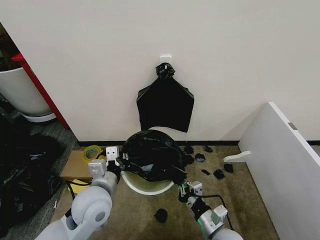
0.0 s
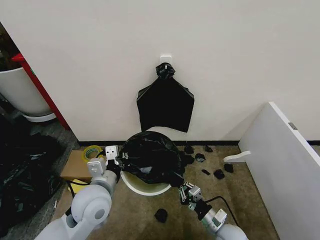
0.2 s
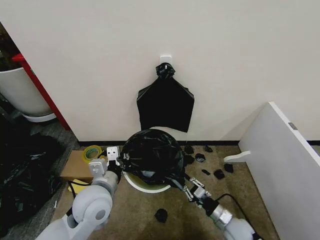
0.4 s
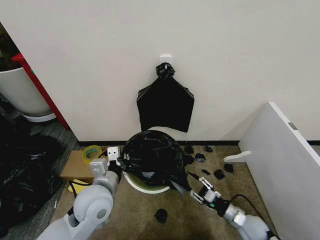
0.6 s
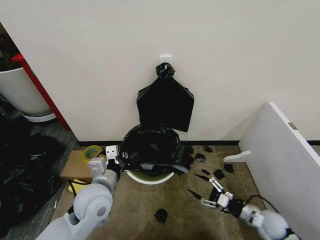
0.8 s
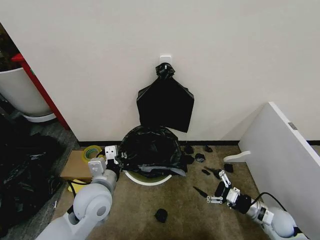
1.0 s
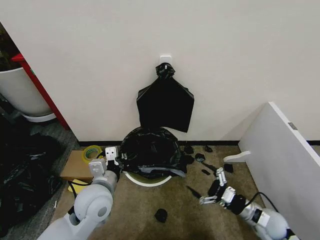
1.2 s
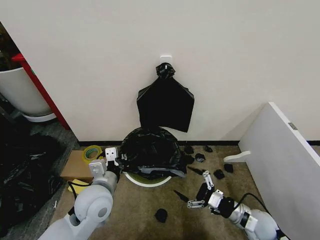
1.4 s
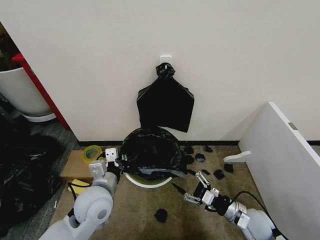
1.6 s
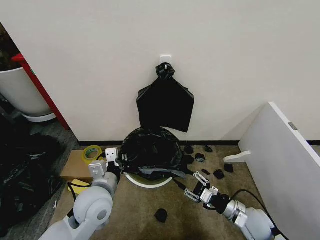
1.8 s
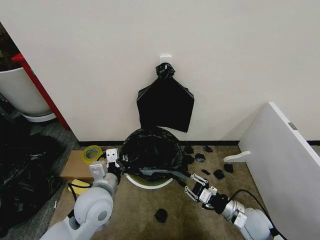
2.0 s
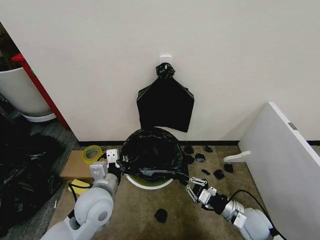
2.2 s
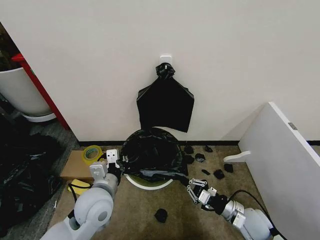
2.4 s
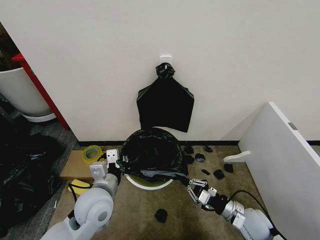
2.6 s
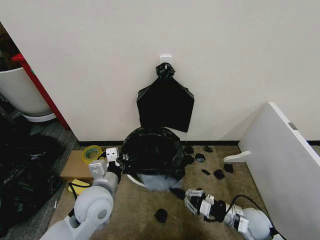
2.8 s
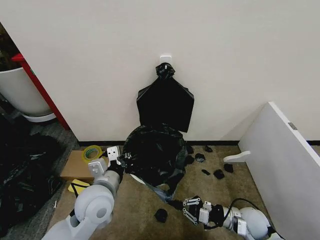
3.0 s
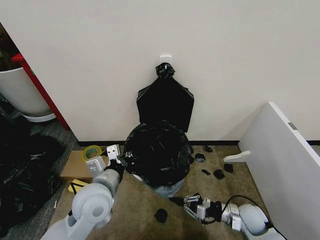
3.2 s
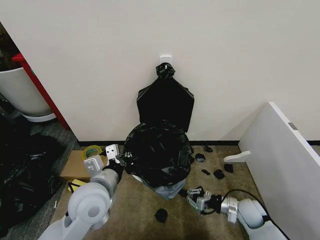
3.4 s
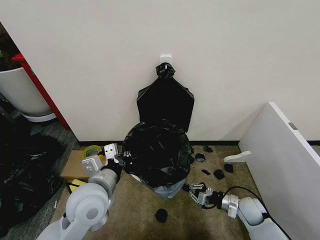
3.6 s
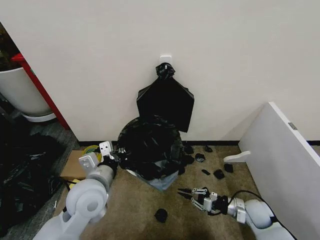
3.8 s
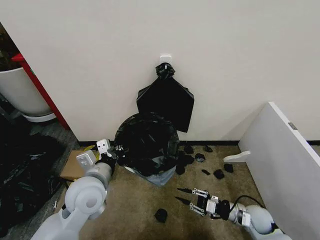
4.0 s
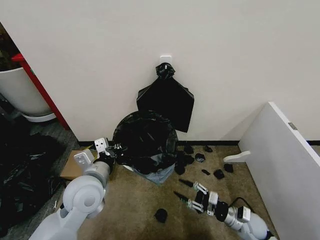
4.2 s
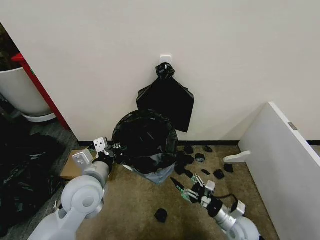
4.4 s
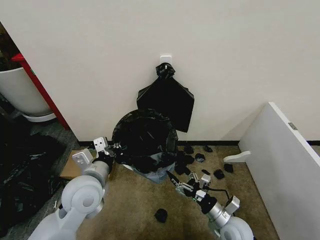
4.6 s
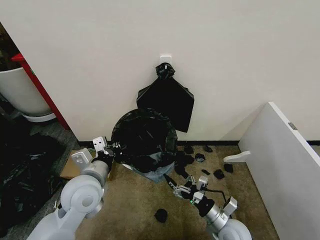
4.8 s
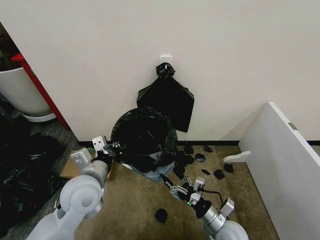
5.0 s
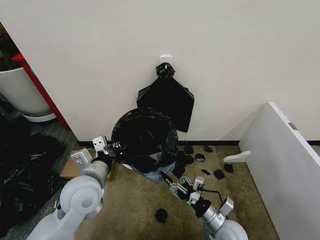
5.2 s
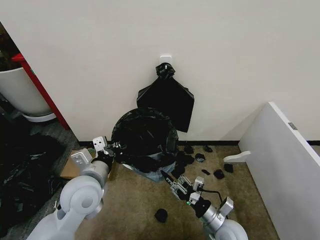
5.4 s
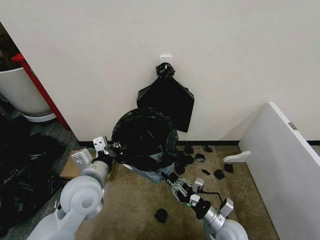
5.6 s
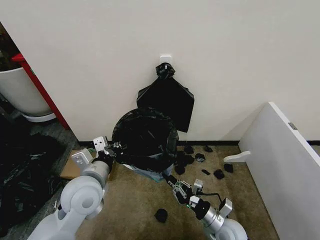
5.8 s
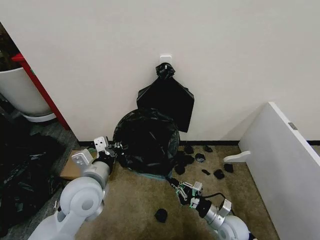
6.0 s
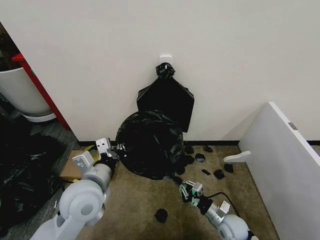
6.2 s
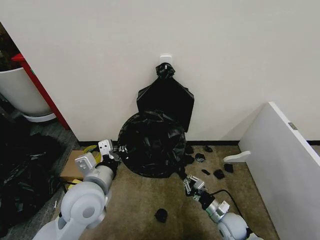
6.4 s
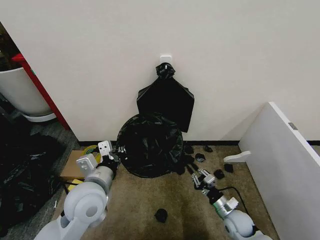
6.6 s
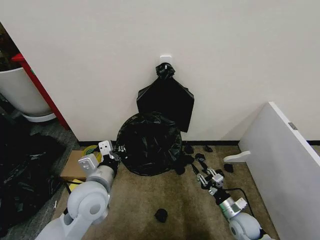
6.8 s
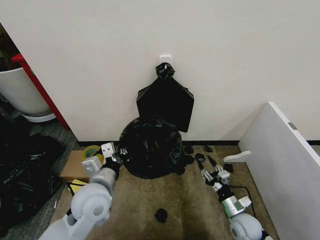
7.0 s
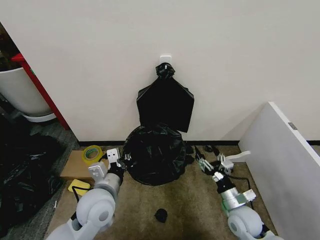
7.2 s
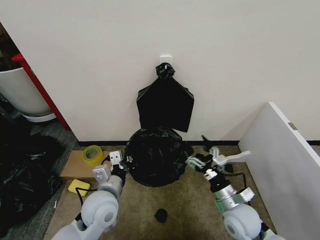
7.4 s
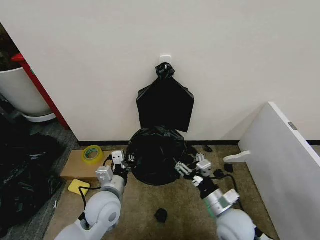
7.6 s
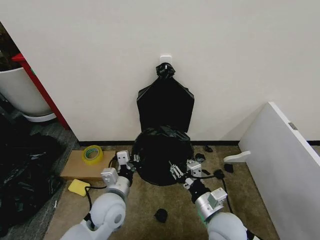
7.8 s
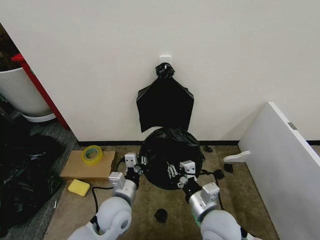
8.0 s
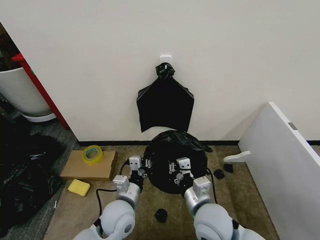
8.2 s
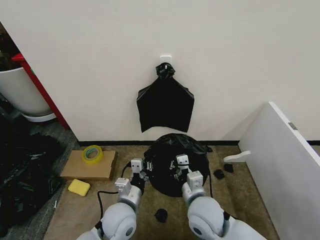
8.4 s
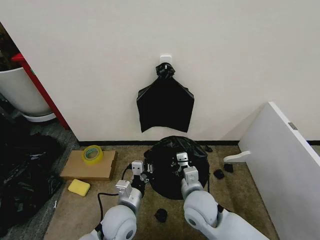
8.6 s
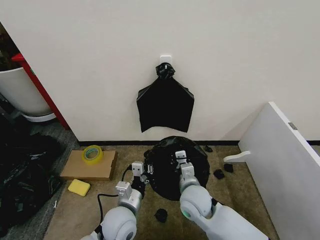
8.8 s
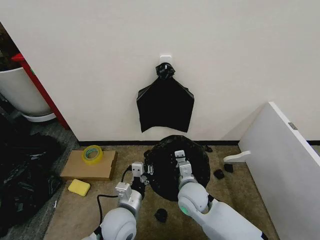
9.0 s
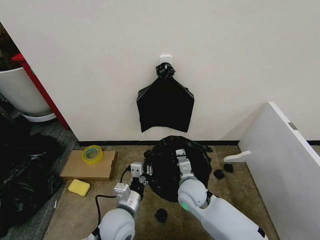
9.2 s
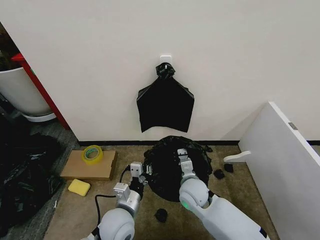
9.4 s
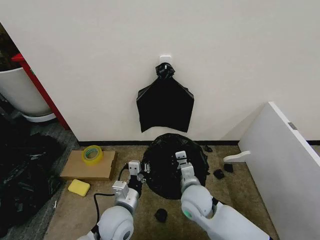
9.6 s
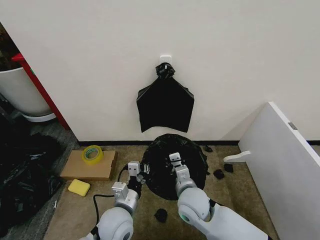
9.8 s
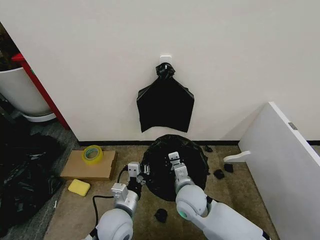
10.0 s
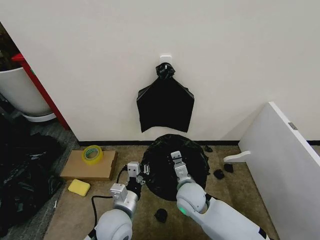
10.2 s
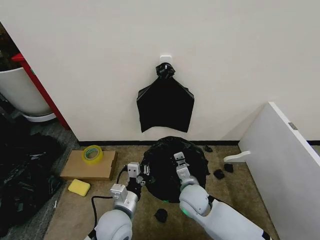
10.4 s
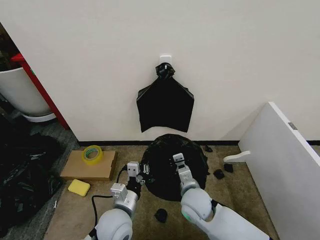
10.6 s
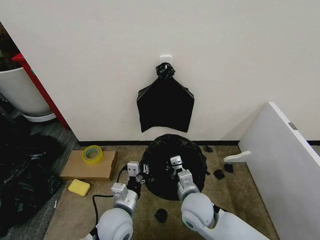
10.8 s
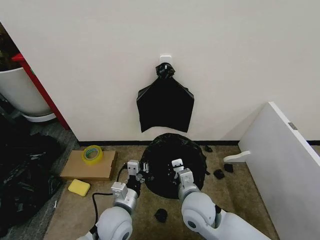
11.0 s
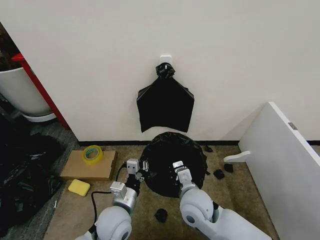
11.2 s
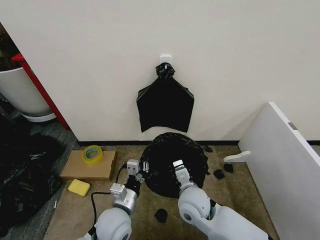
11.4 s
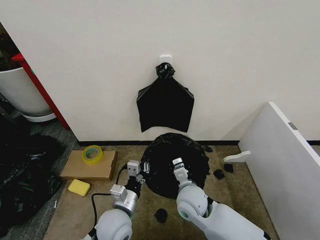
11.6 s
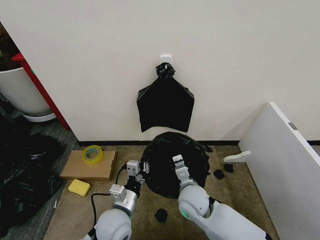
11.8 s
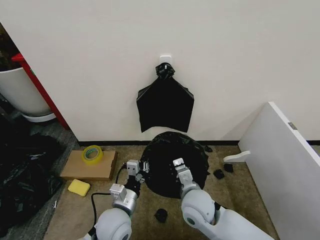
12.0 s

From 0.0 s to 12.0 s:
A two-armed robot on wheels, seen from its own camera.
Task of the whole recording: Place the garbage bag over the trash bin.
From 0.0 s to 1.6 s: The right gripper travels to the right and forward by about 15 cm, and opens up.
From 1.6 s to 3.0 s: The right gripper closes.
From 3.0 s to 4.4 s: The right gripper opens.
From 4.4 s to 6.0 s: The right gripper closes up.
From 6.0 s to 7.6 s: The right gripper heads upward, covering approximately 10 cm, and opens. Meanwhile the left gripper travels downward by some 10 cm.
From 7.6 s to 9.0 s: The right gripper heads to the left and forward, covering approximately 15 cm, and closes up. The left gripper shifts by roughly 5 cm.
From 9.0 s to 10.4 s: The grippers stay close to where they were, moving slightly.
From 10.4 s to 12.0 s: The right gripper ends up about 5 cm from where it was.

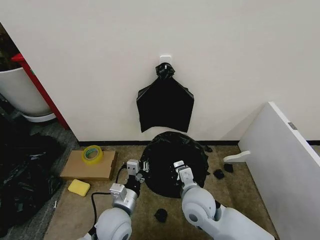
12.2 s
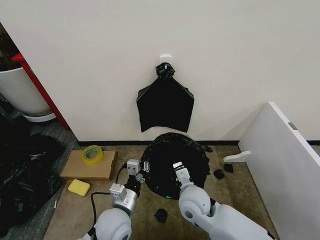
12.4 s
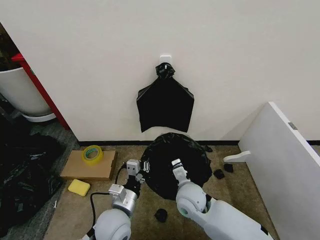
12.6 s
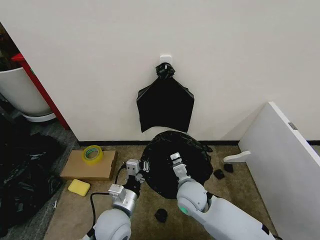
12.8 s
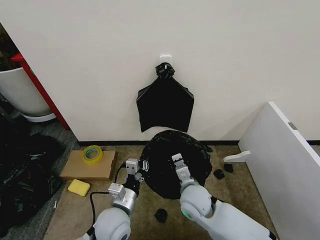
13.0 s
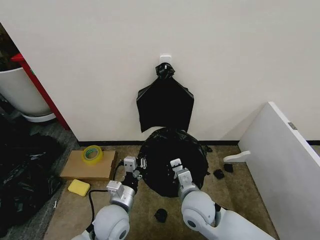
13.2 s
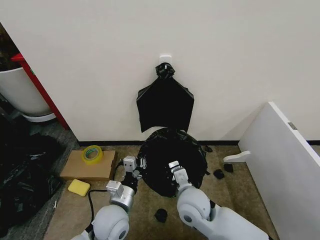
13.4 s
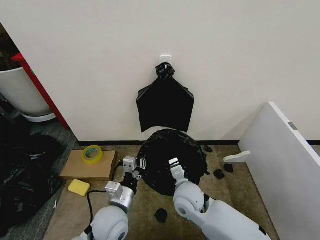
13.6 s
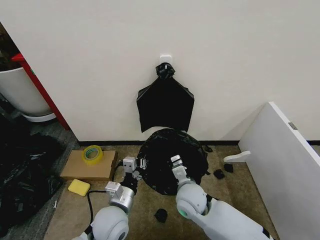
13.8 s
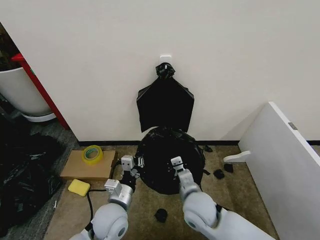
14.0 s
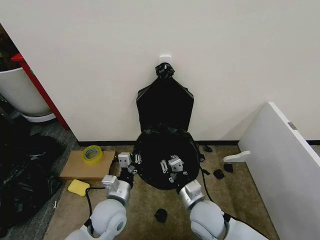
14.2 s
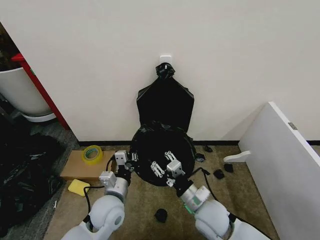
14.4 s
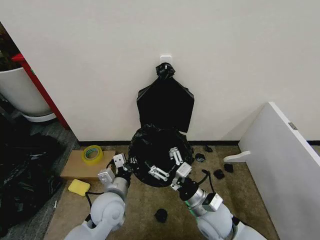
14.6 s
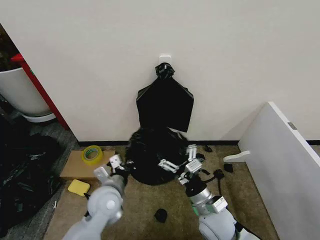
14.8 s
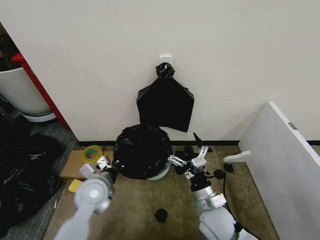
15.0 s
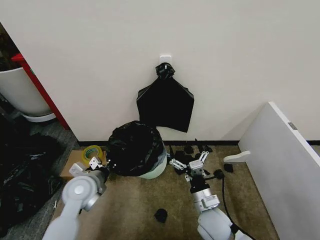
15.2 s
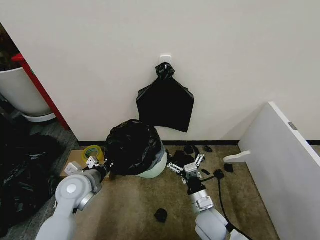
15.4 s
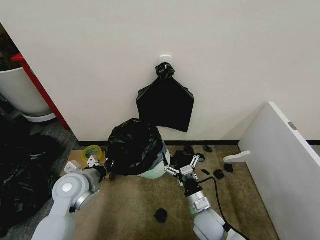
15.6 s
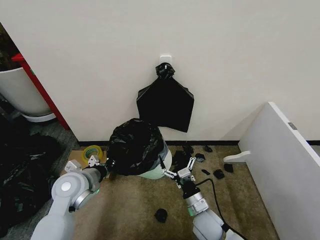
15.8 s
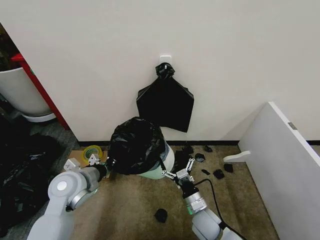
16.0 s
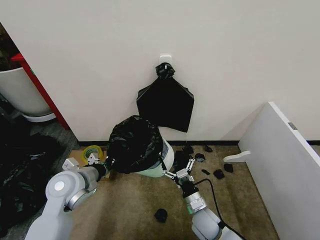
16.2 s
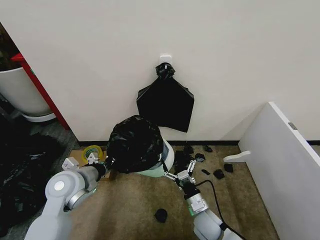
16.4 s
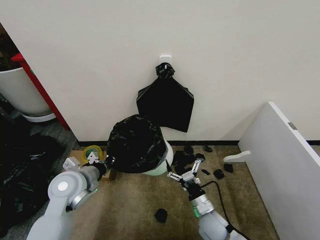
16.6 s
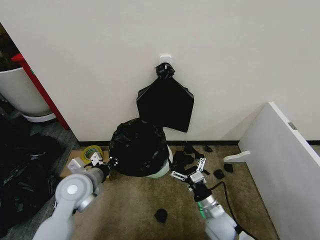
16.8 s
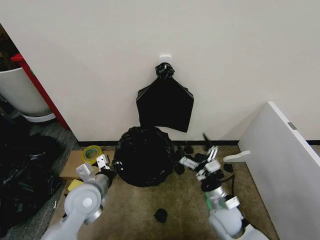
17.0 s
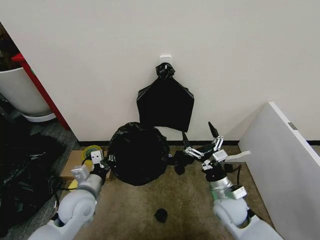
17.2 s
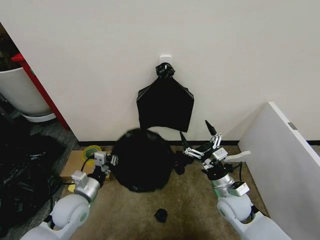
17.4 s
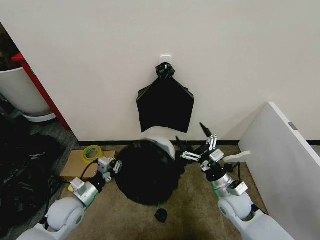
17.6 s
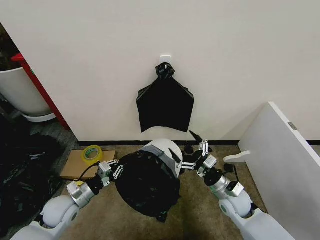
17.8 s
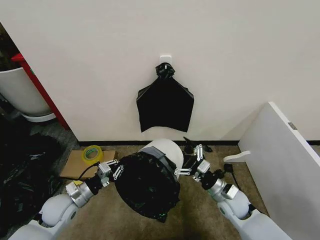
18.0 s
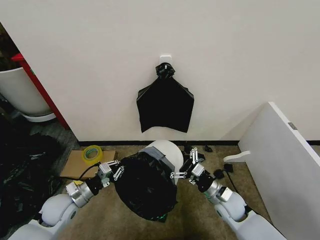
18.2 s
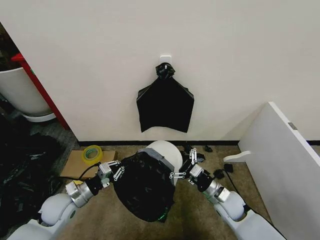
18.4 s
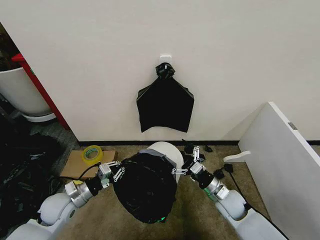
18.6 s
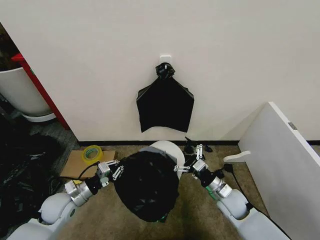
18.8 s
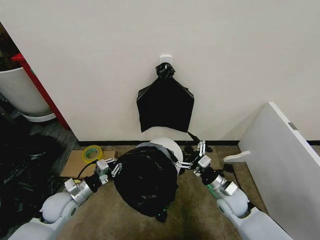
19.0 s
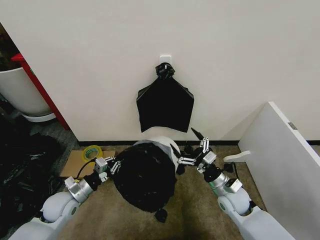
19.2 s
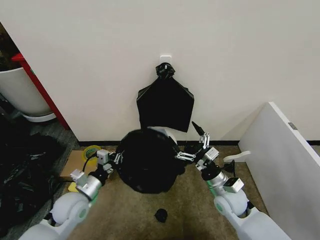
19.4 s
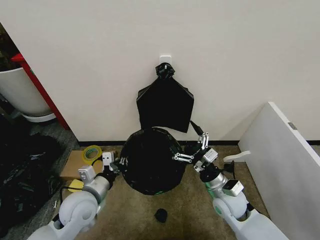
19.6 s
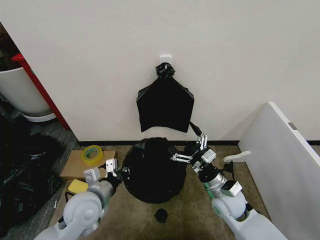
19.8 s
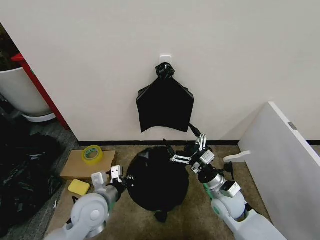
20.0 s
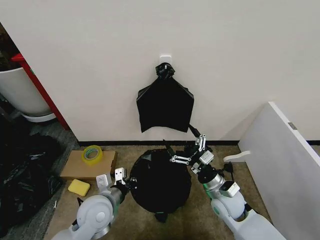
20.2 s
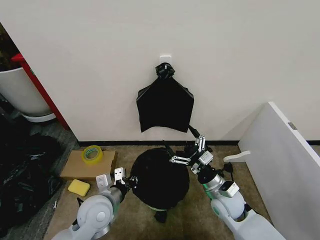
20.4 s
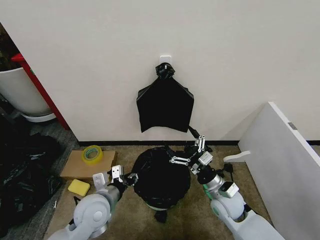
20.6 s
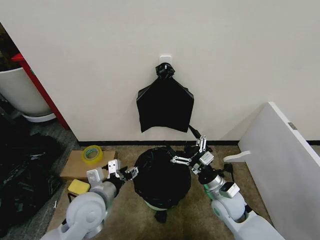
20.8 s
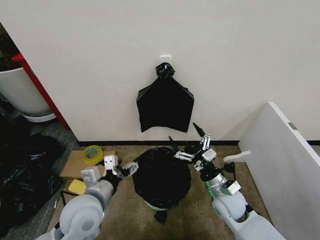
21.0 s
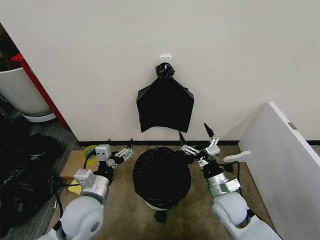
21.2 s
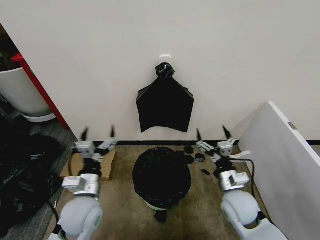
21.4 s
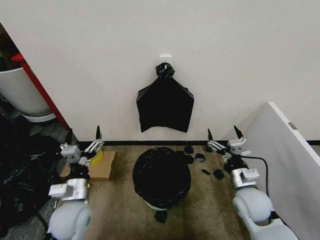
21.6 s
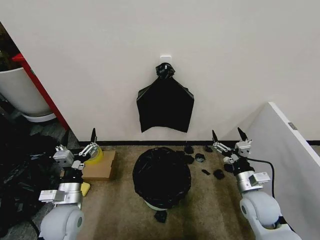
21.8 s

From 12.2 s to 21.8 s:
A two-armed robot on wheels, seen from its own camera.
Task of the whole recording: Place the garbage bag over the trash bin.
From 12.2 s to 13.8 s: The grippers stay close to where they were, moving slightly.
From 13.8 s to 15.4 s: The right gripper travels to the right, backward and downward by approximately 10 cm, and opens up; the left gripper is displaced to the left, forward and upward by approximately 15 cm.
From 15.4 s to 17.0 s: The grippers make only small movements.
From 17.0 s to 18.6 s: The left gripper heads to the left and downward, covering approximately 15 cm; the right gripper shifts roughly 5 cm forward.
From 18.6 s to 20.2 s: The left gripper heads to the right, covering some 15 cm. Meanwhile the right gripper moves upward, about 5 cm.
From 20.2 s to 21.8 s: The left gripper heads to the left, covering roughly 10 cm, and opens up, while the right gripper heads to the right, covering some 10 cm.
